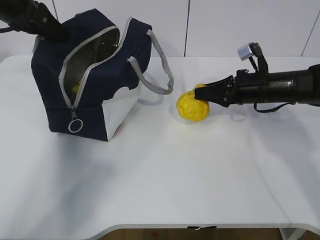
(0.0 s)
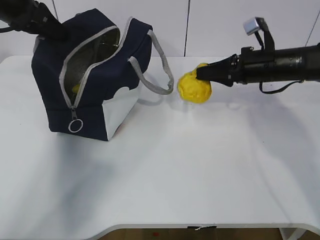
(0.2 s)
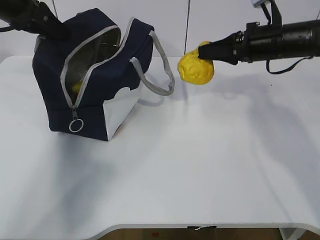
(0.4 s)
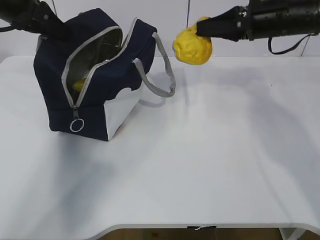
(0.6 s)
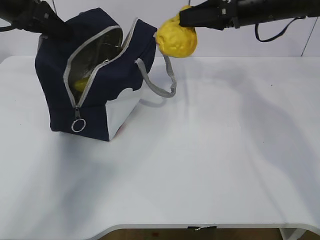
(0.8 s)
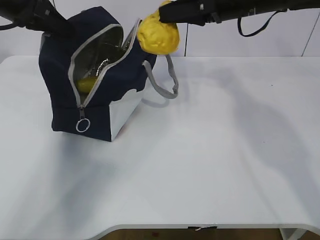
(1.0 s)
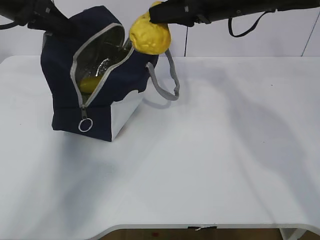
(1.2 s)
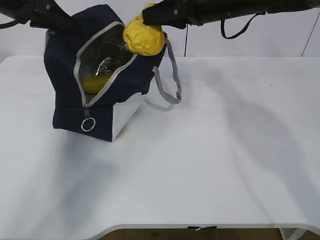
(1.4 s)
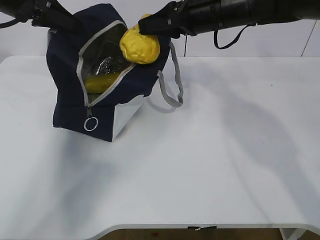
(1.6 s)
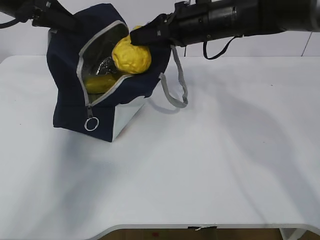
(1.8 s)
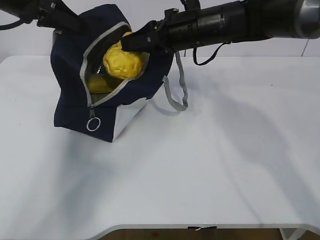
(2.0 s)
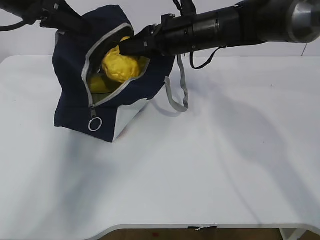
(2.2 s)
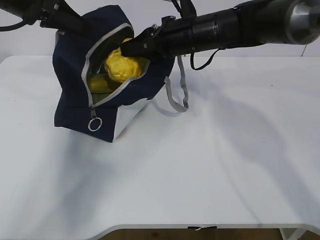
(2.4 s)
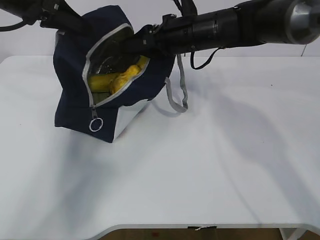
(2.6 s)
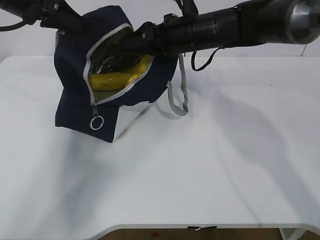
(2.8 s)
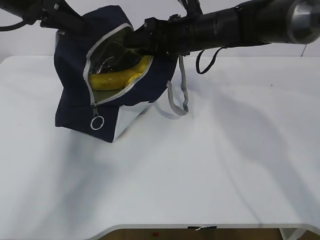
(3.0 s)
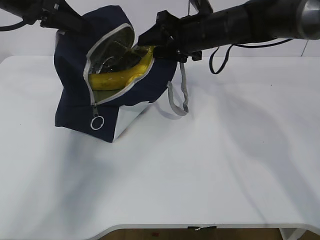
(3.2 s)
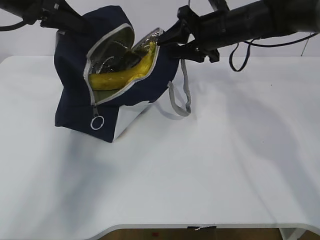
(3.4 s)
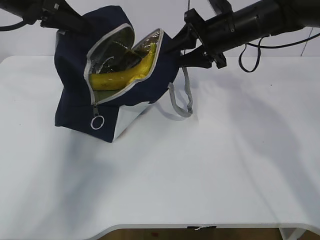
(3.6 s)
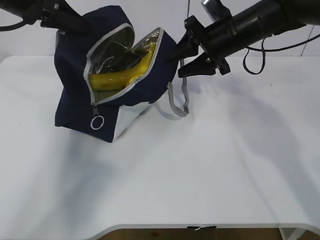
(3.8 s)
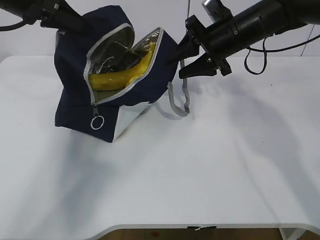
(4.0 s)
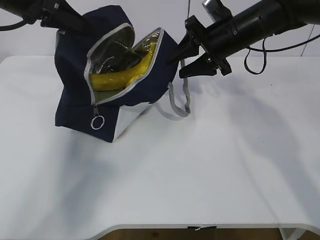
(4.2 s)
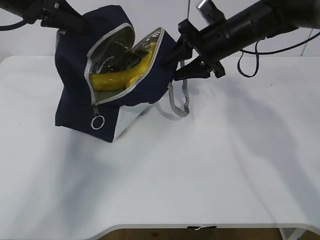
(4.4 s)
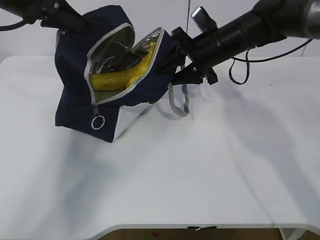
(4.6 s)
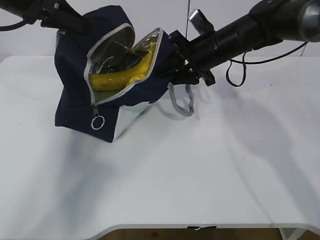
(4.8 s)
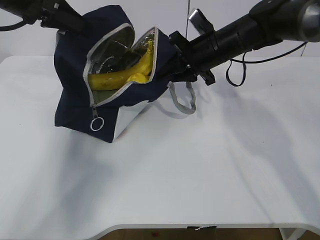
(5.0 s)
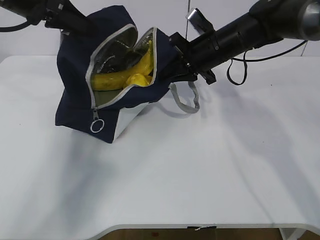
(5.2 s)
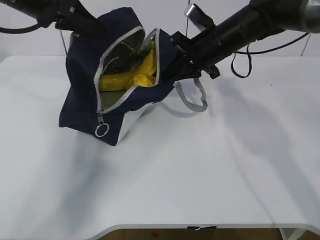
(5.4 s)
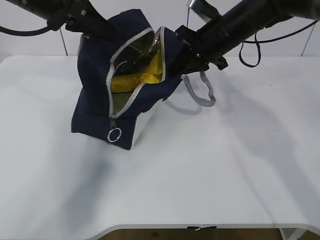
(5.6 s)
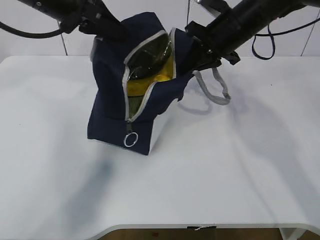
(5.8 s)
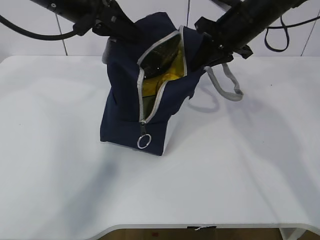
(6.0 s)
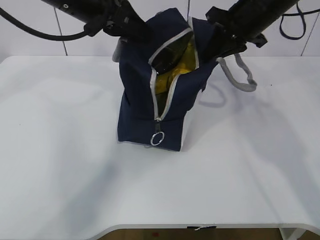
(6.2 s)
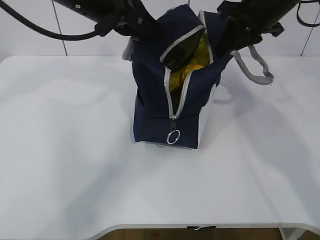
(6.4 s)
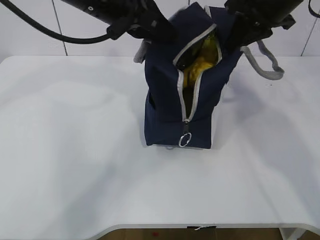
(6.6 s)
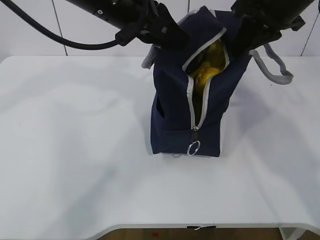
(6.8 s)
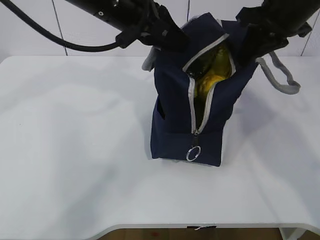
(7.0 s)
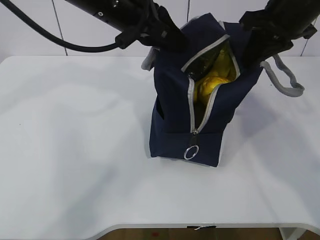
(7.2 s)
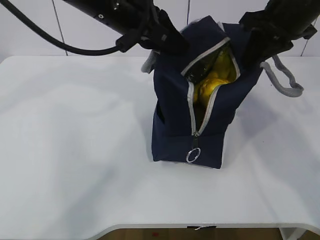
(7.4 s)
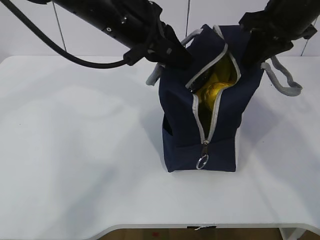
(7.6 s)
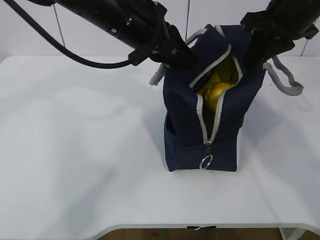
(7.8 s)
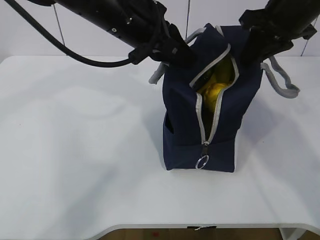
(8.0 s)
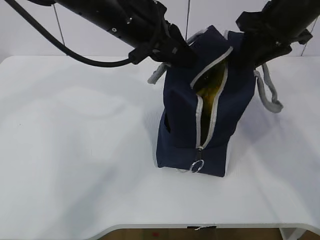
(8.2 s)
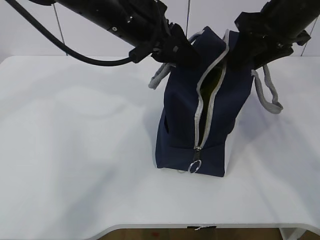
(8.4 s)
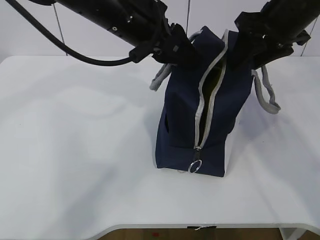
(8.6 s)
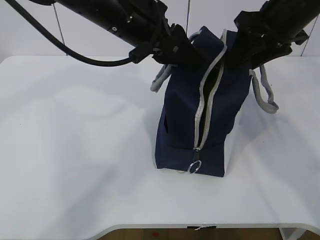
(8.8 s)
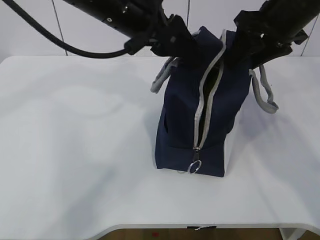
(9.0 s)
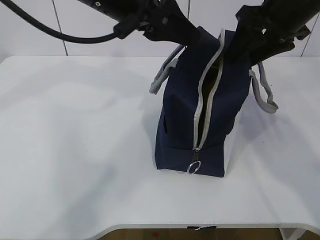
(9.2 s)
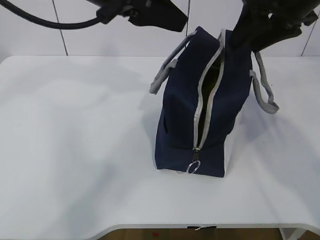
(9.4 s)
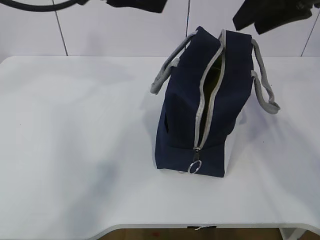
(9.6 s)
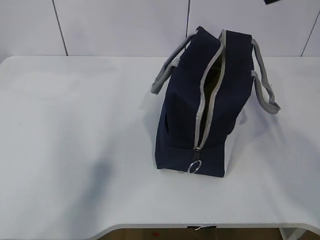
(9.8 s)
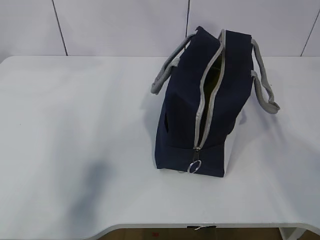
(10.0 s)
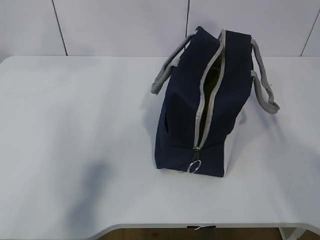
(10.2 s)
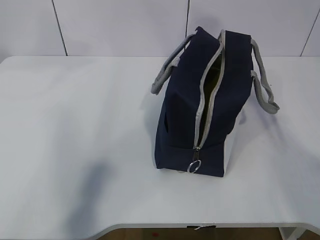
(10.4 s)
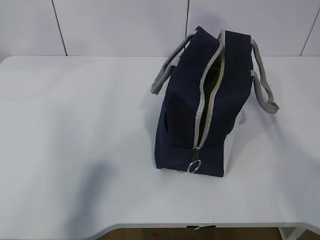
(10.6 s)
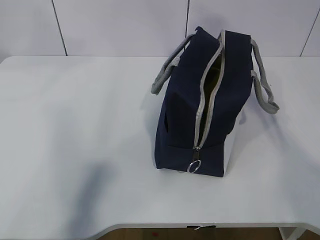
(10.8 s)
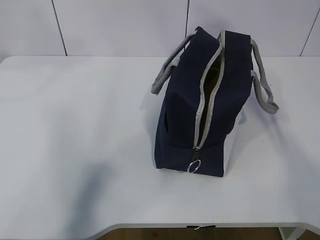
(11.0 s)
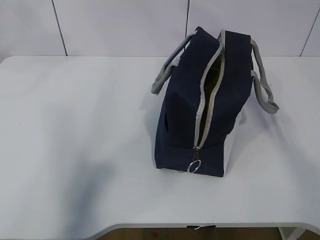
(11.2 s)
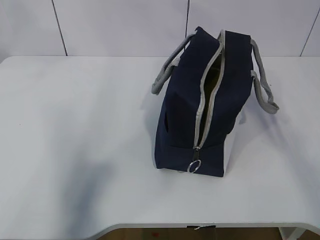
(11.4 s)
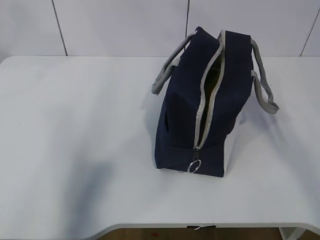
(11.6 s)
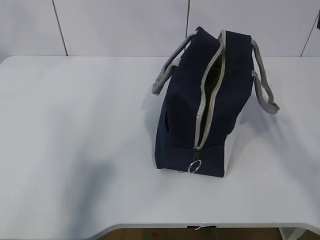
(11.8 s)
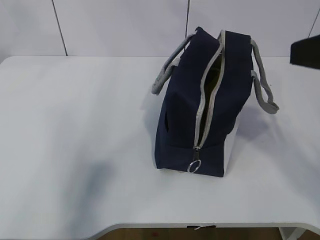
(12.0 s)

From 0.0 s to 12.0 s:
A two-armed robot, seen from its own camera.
From 0.0 s to 1.6 s: The right gripper heads upward and to the left, covering roughly 15 cm.
From 1.6 s to 3.0 s: The right gripper changes place by roughly 5 cm, and opens its fingers.
From 3.0 s to 4.4 s: The right gripper shifts roughly 5 cm to the right.
From 4.4 s to 6.0 s: The left gripper is displaced to the right by some 10 cm; the right gripper shifts by some 5 cm, and closes.
From 6.0 s to 7.6 s: The right gripper travels backward by approximately 5 cm; the left gripper moves to the right, about 10 cm.
From 7.6 s to 9.0 s: The left gripper opens up. The right gripper opens up.
From 9.0 s to 10.4 s: The left gripper heads to the left and upward, covering about 20 cm. Meanwhile the right gripper shifts about 20 cm upward and backward.
From 10.4 s to 12.0 s: The right gripper is displaced downward and backward by approximately 15 cm.

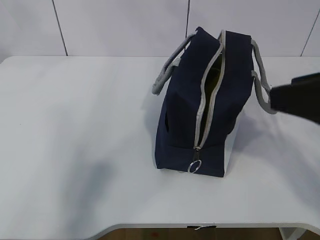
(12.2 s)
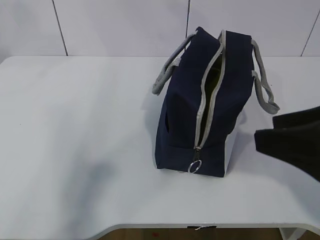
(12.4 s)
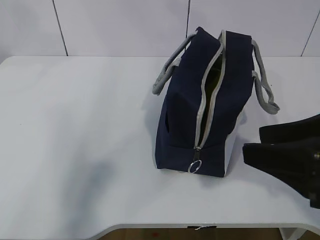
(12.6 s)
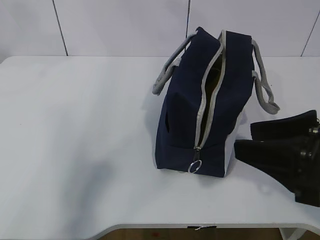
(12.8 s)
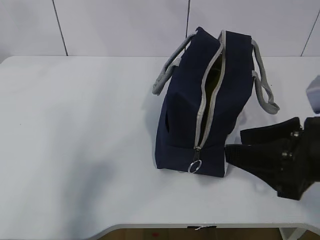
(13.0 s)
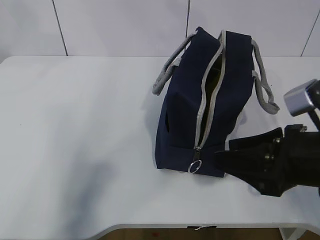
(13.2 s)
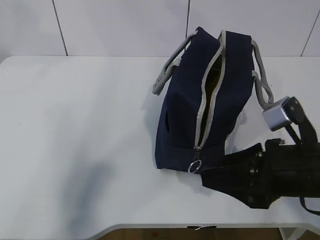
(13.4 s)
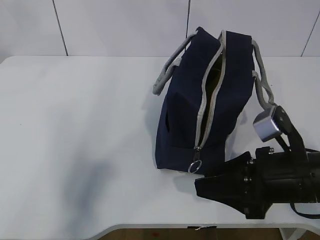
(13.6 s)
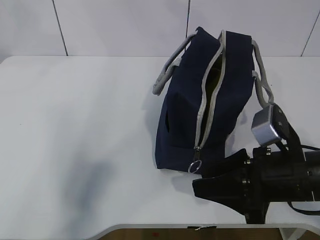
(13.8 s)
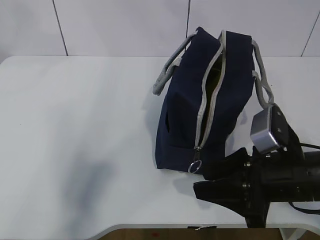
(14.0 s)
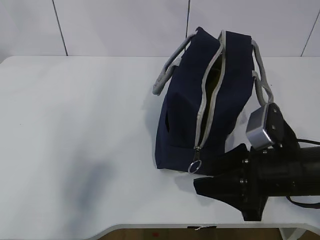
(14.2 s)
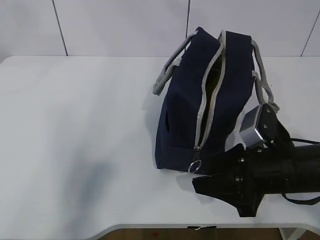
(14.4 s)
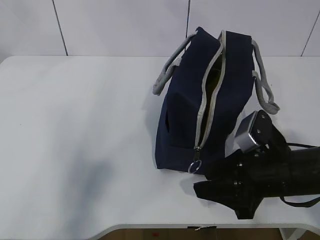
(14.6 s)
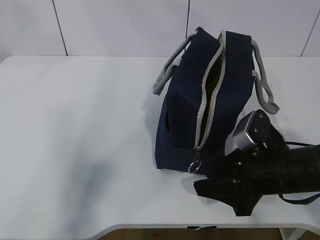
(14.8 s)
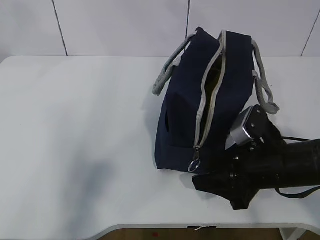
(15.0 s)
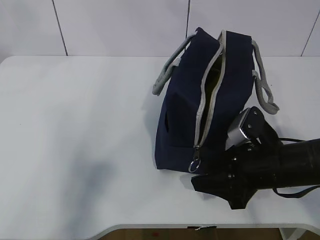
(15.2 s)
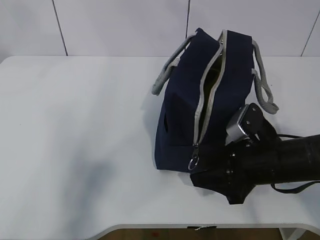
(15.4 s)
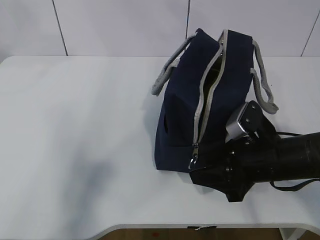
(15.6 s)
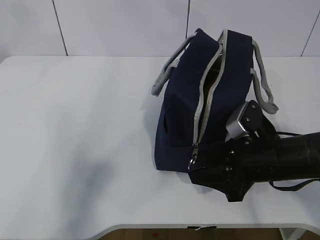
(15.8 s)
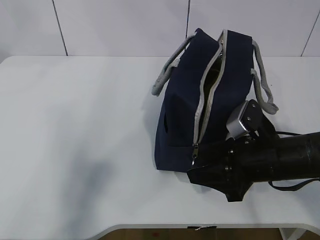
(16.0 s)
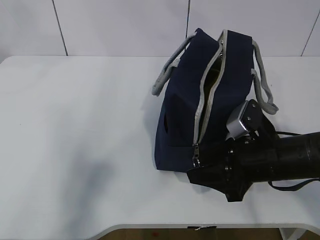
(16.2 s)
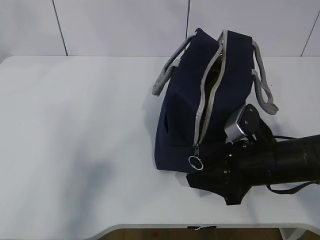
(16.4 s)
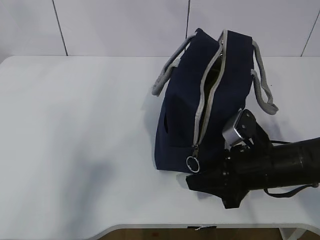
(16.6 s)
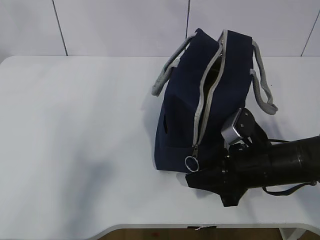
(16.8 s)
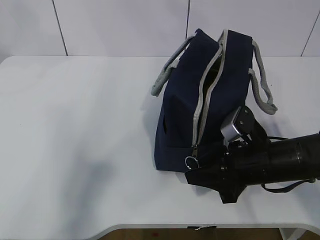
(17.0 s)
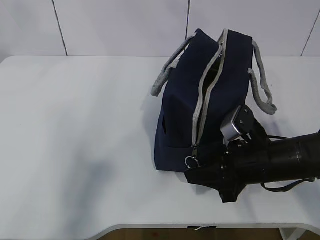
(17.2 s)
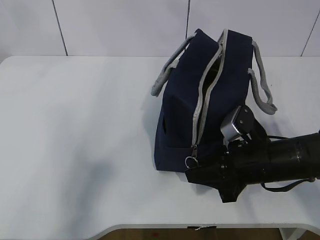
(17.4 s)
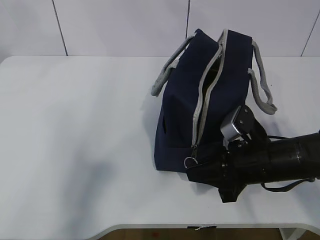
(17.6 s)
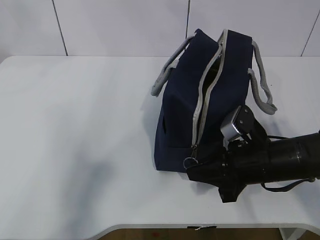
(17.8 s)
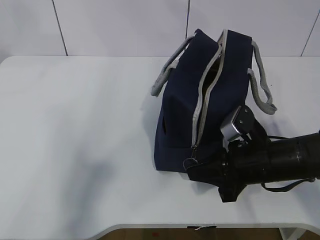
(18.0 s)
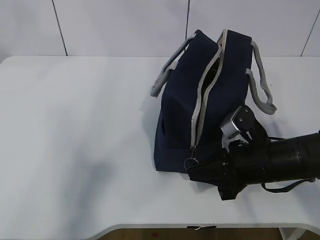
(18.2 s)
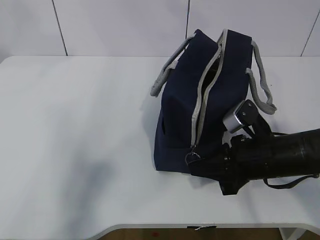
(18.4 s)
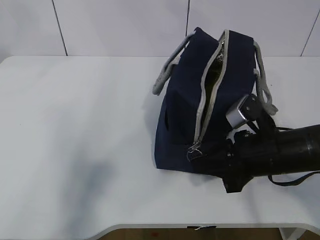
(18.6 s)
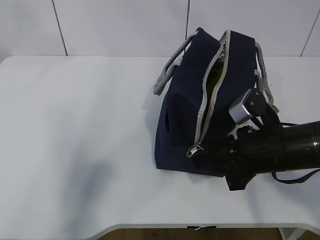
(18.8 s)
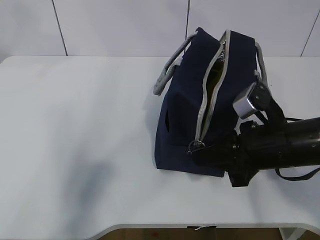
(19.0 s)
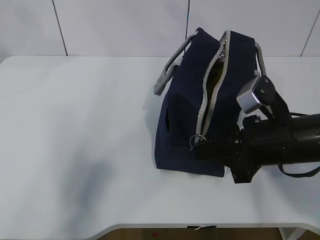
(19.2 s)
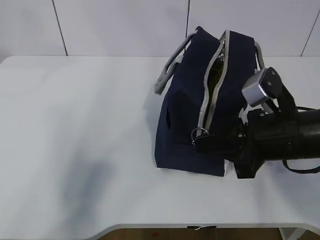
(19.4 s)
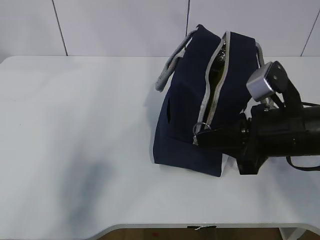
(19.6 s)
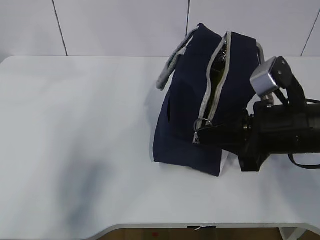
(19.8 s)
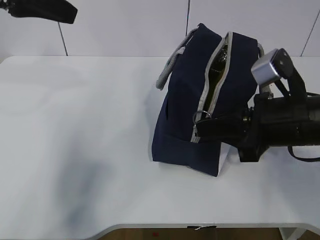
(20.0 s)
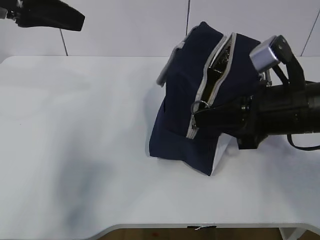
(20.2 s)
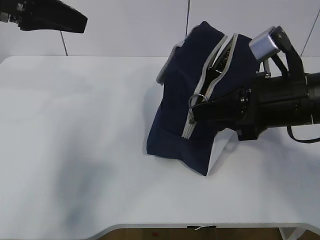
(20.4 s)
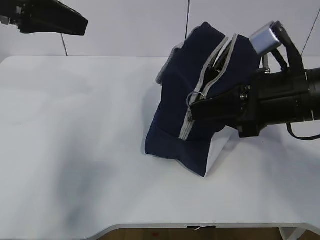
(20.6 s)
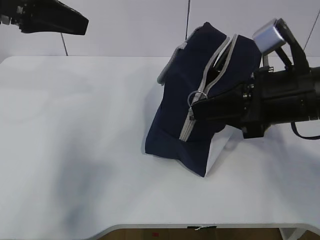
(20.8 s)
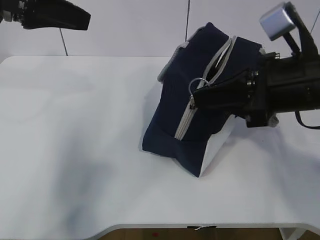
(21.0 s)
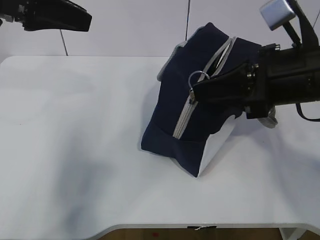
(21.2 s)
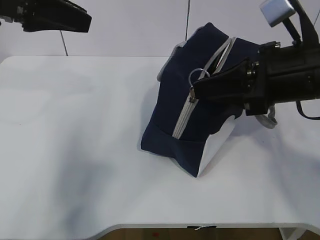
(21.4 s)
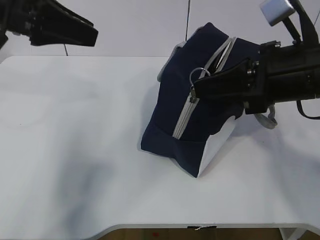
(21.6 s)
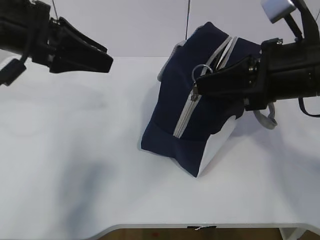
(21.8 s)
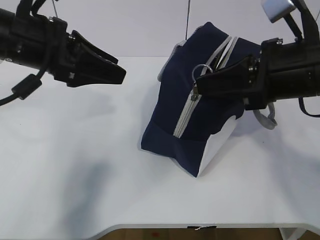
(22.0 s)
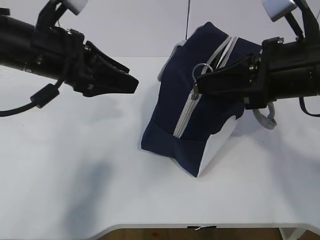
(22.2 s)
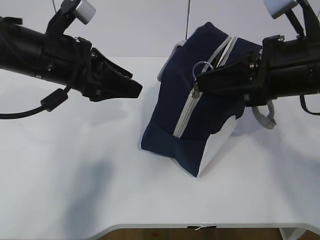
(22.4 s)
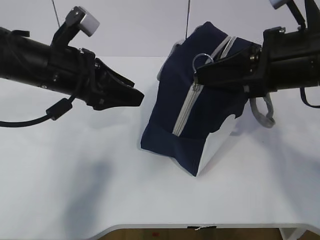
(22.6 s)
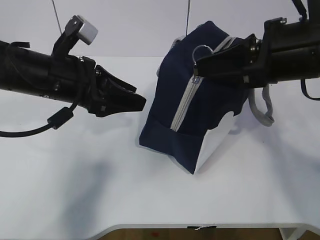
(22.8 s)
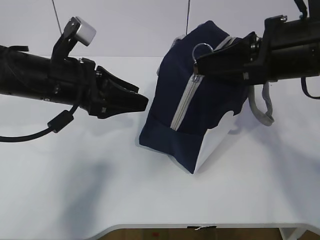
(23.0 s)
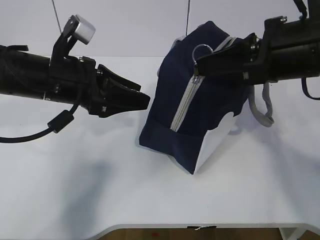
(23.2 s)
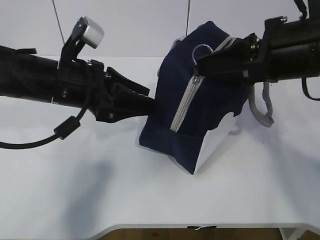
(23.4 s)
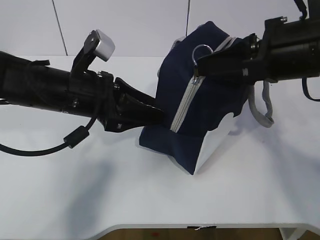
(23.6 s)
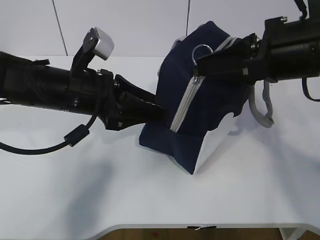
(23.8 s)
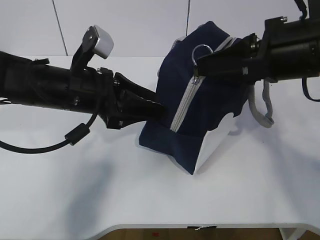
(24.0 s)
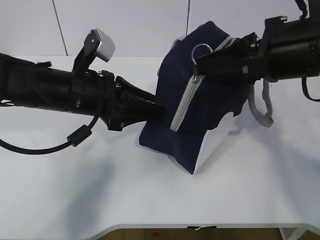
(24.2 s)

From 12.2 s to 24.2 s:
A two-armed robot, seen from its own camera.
From 12.2 s to 13.8 s: The right gripper heads downward, covering some 15 cm.
From 13.8 s to 15.2 s: There are only small adjustments of the grippers.
From 15.2 s to 16.6 s: Both grippers stay put.
From 16.6 s to 18.2 s: The right gripper closes its fingers.
From 18.2 s to 19.8 s: The right gripper goes some 10 cm upward. The left gripper shifts roughly 5 cm downward.
From 19.8 s to 21.2 s: The right gripper goes roughly 5 cm upward.
From 21.2 s to 22.6 s: The left gripper is displaced downward and to the right by approximately 15 cm.
From 22.6 s to 24.2 s: The grippers stay close to where they were, moving slightly.
